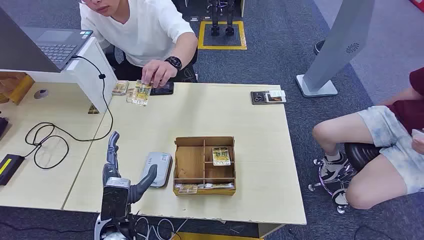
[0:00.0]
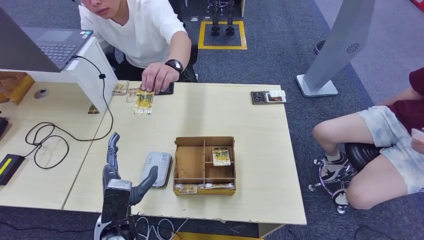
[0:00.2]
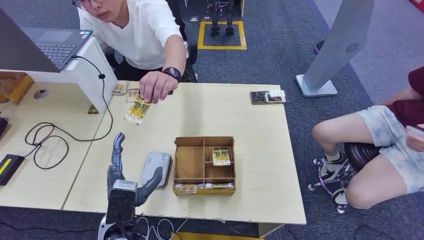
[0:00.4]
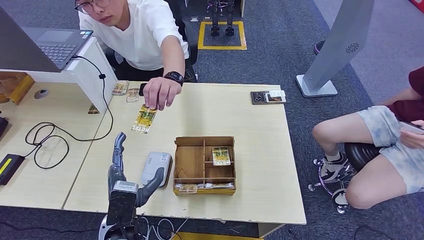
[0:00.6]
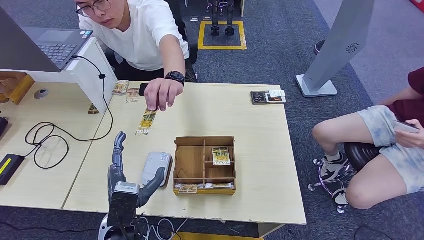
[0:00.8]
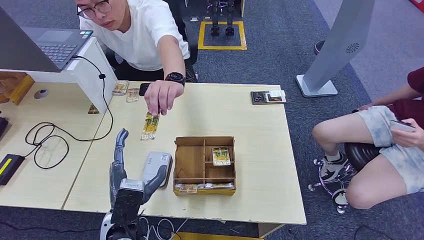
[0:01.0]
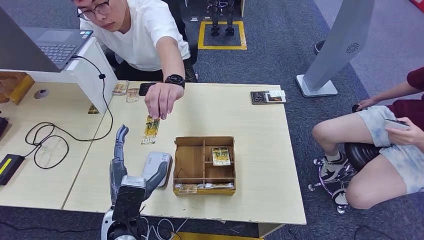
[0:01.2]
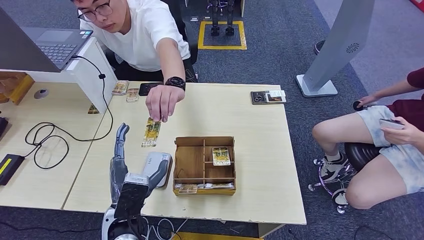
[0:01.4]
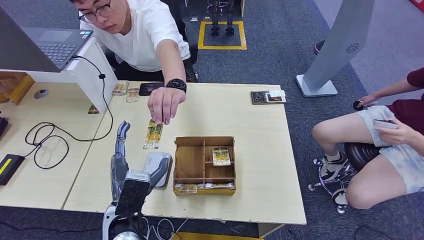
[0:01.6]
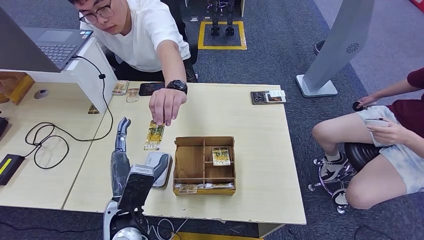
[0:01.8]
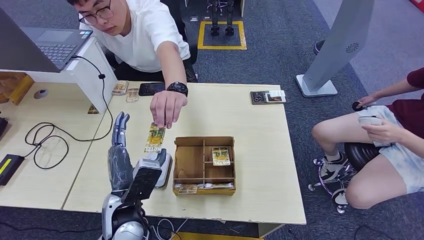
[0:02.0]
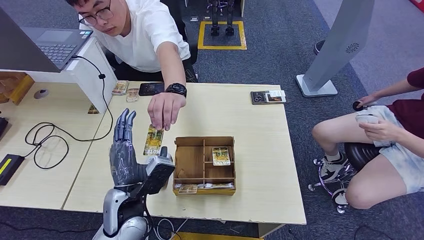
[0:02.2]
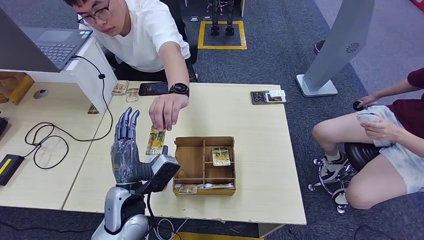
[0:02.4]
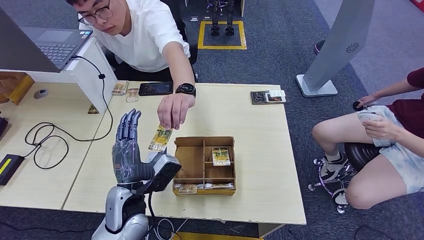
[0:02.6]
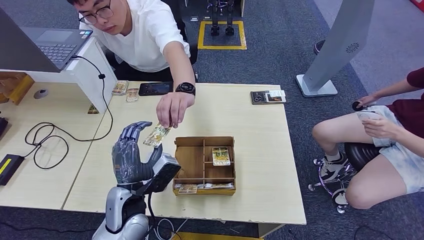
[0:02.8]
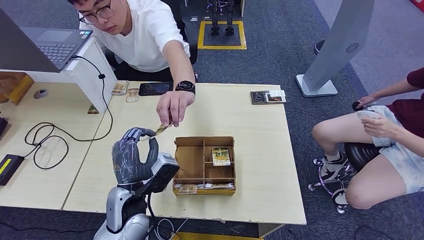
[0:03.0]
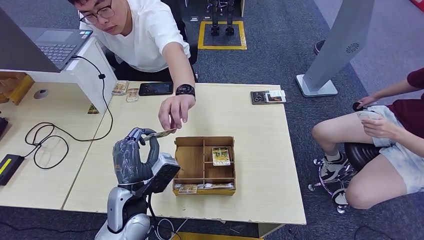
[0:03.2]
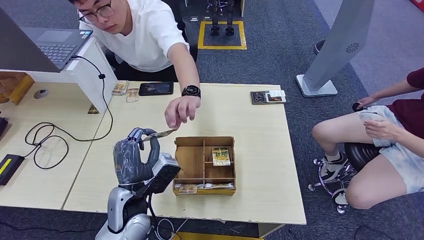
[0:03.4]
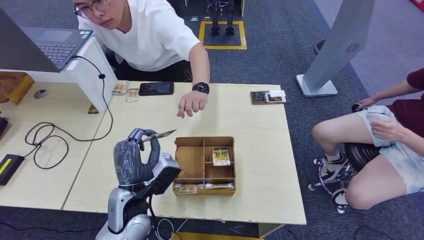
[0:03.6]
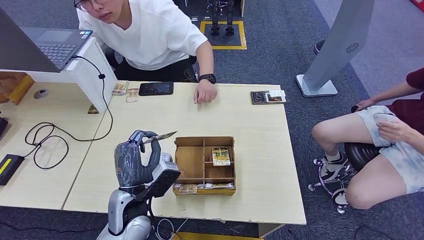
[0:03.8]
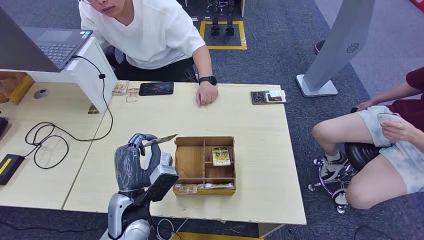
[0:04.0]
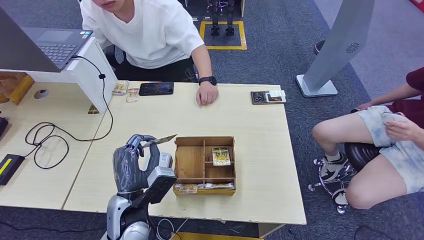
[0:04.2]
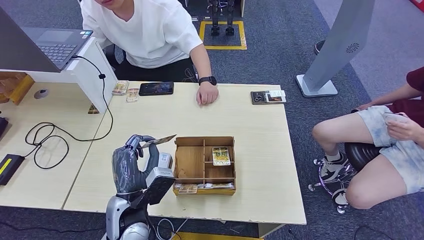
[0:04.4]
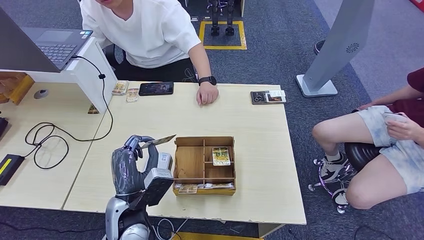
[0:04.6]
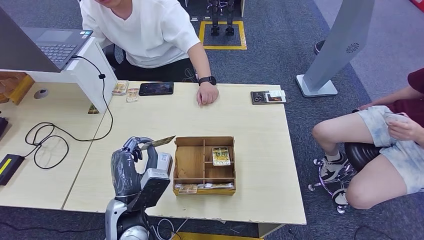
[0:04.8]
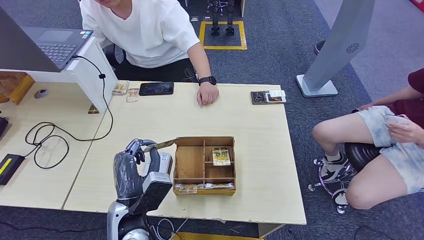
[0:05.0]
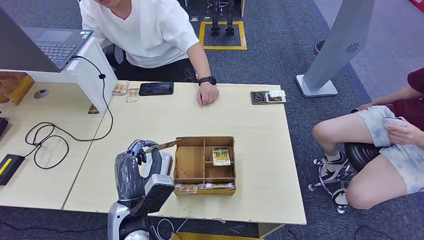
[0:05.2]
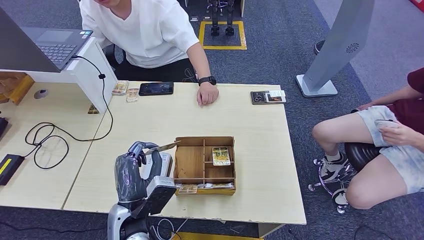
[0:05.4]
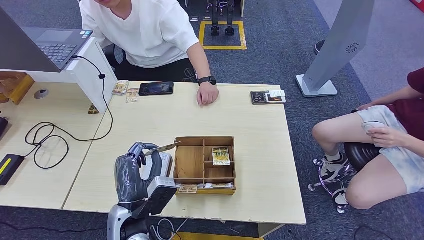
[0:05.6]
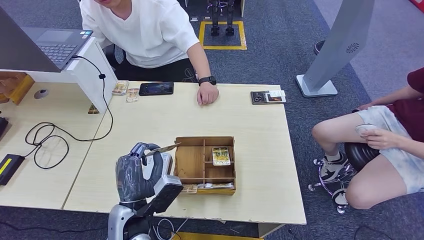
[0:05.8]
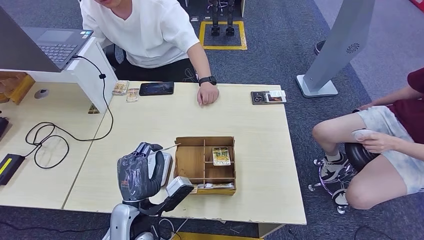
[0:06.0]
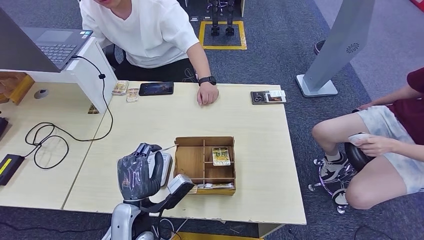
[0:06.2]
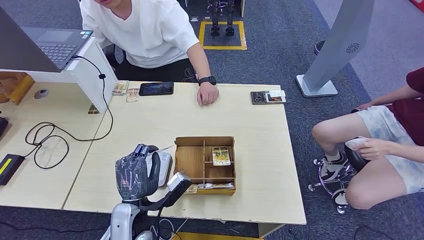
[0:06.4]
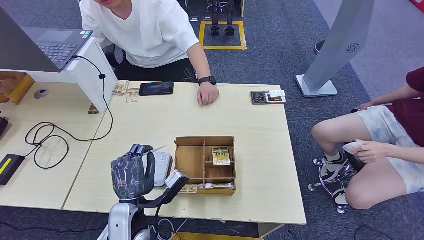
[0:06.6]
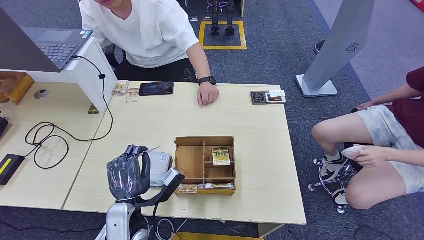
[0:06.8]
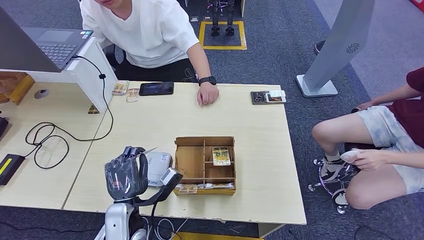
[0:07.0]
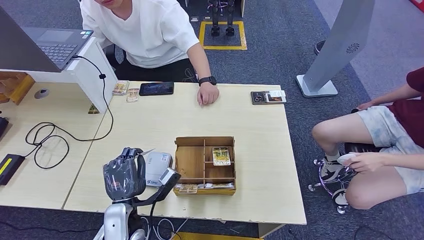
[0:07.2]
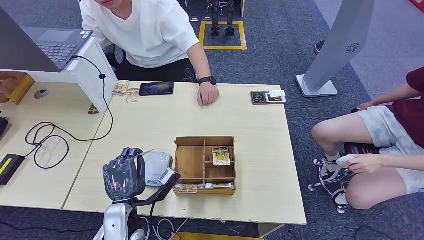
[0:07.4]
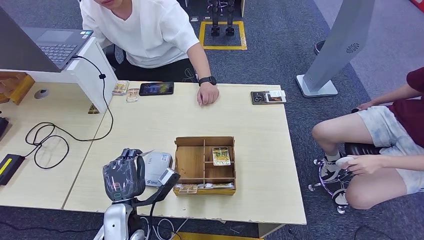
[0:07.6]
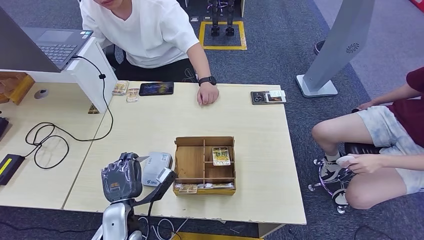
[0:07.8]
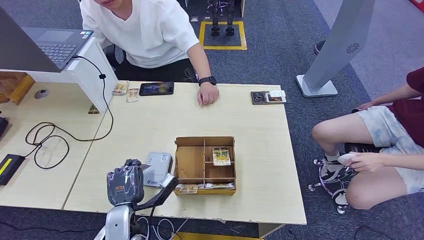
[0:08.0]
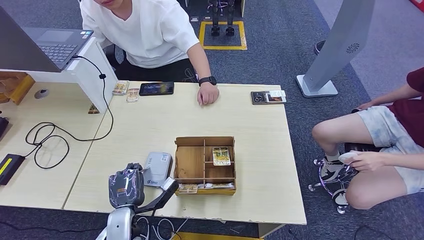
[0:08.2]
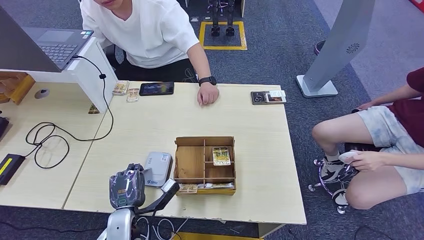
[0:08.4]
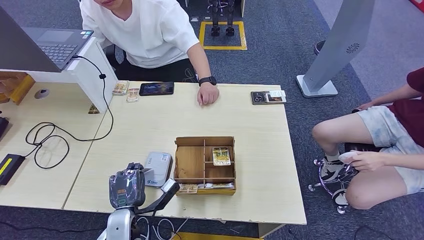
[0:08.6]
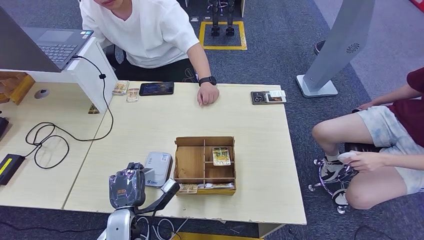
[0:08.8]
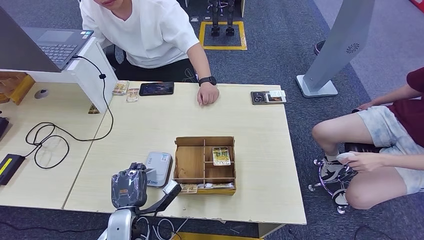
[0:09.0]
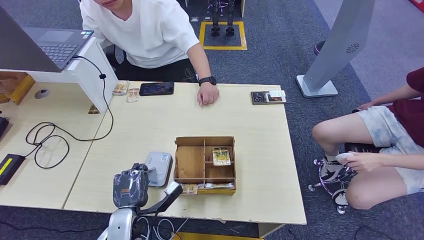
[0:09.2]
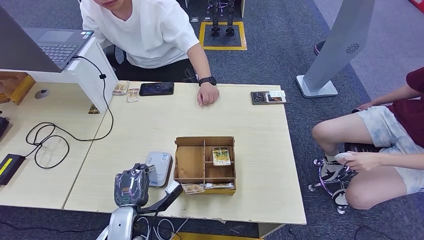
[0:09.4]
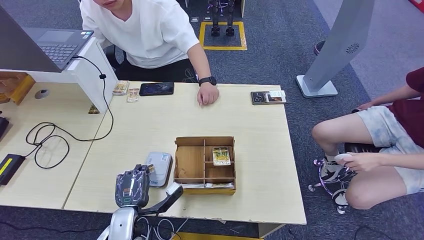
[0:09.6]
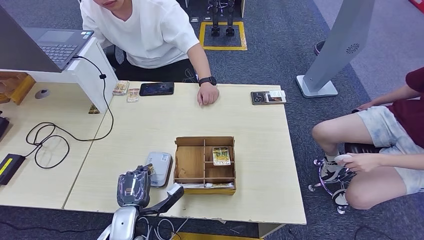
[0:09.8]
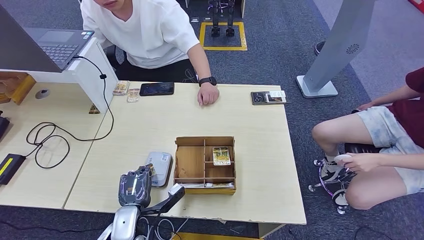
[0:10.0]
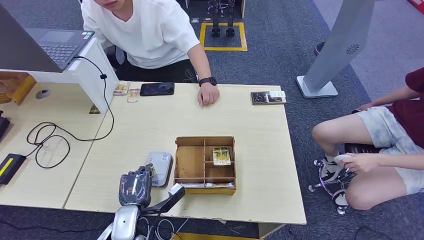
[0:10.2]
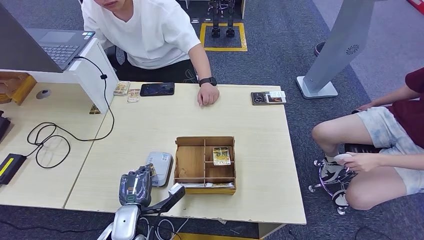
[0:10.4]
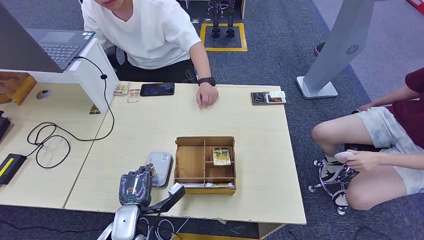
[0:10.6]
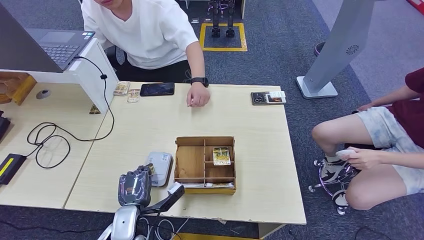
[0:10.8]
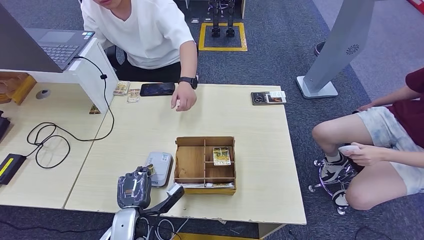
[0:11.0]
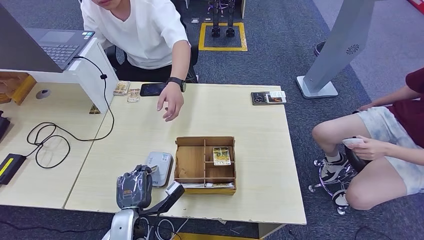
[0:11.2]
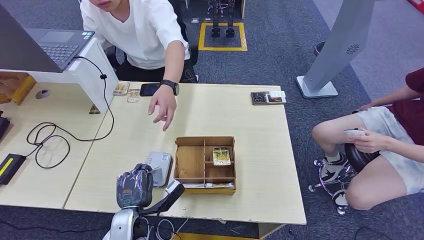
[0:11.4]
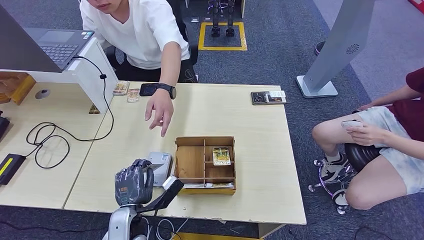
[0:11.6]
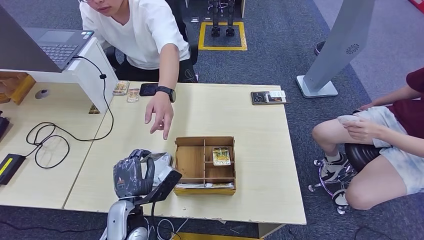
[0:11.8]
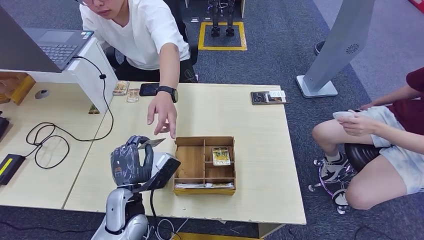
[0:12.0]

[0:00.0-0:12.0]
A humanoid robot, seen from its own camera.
Step, 0:00.0 to 0:04.0: Take the ID card from the person's hand.
Step, 0:04.8 to 0:10.2: Place the ID card on the card reader.
0:03.0 to 0:06.0: The hands stay close to where they were, moving slightly.
0:06.0 to 0:07.6: The left hand ends up about 5 cm from where it was.
0:09.0 to 0:10.4: The hands make only small movements.
0:10.4 to 0:12.0: The left hand is displaced upward by roughly 10 cm.

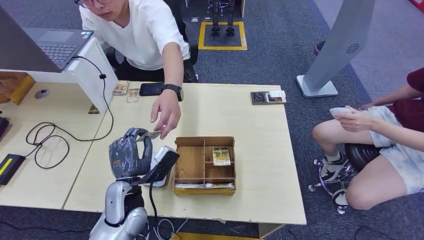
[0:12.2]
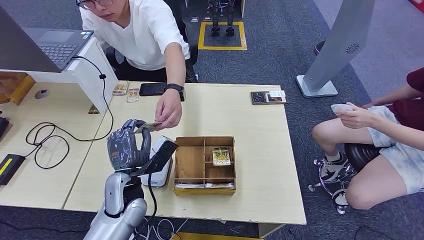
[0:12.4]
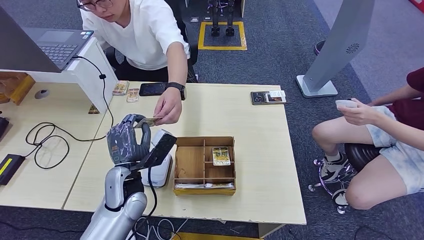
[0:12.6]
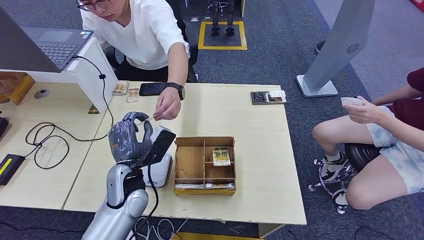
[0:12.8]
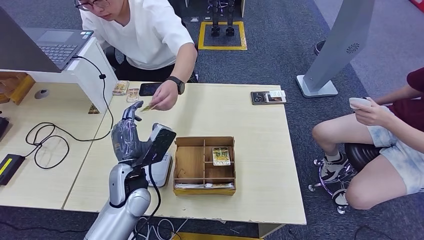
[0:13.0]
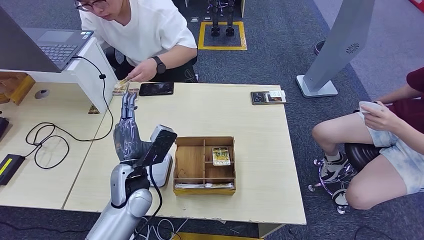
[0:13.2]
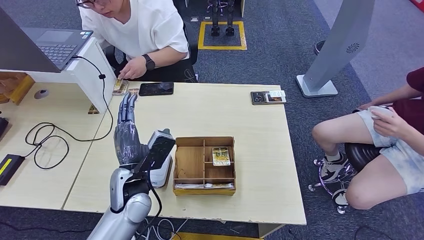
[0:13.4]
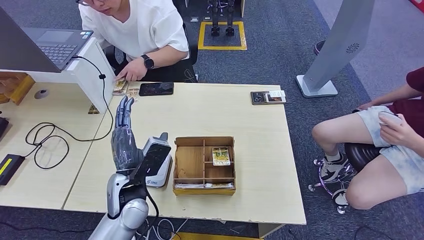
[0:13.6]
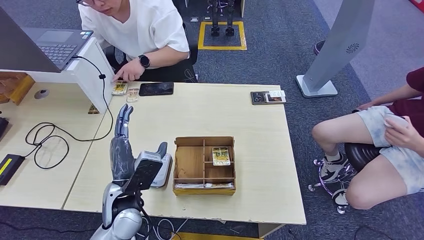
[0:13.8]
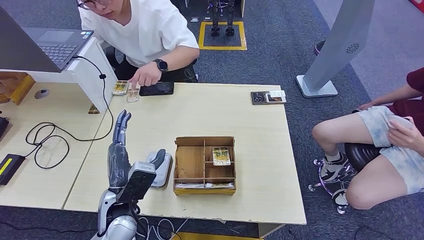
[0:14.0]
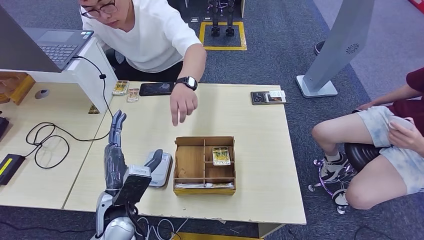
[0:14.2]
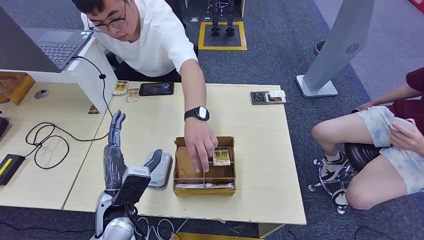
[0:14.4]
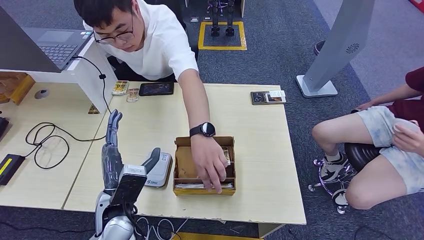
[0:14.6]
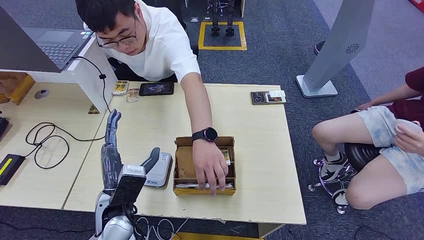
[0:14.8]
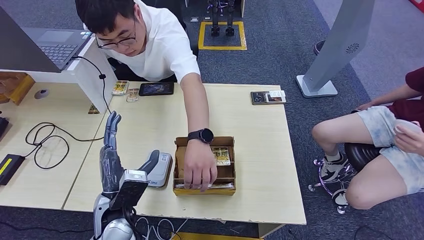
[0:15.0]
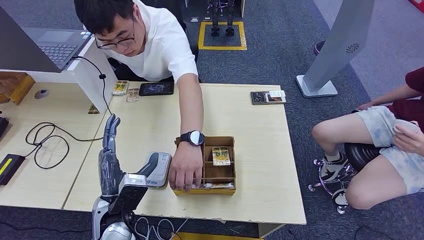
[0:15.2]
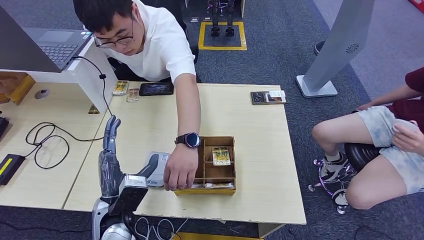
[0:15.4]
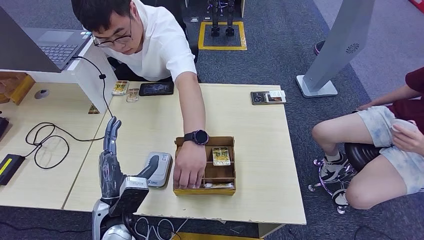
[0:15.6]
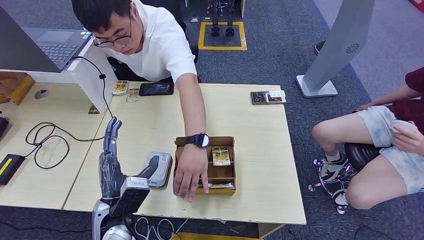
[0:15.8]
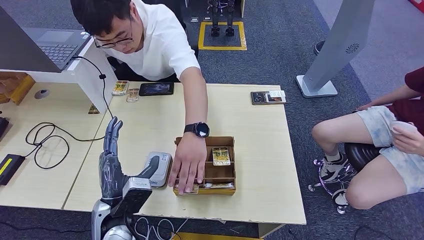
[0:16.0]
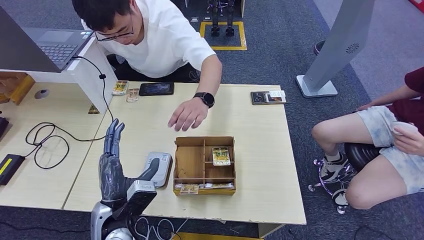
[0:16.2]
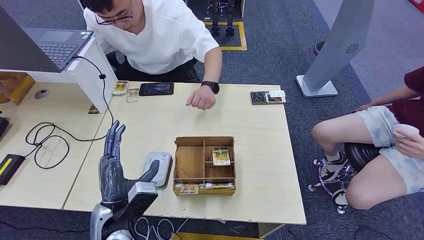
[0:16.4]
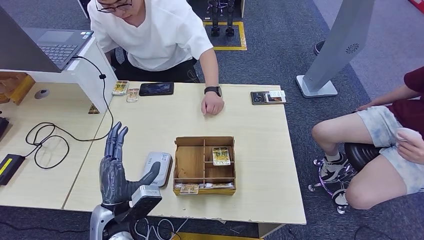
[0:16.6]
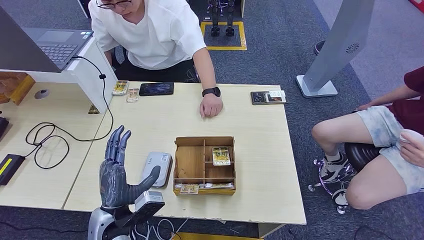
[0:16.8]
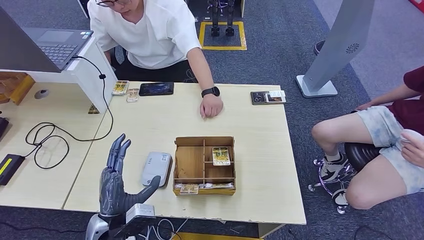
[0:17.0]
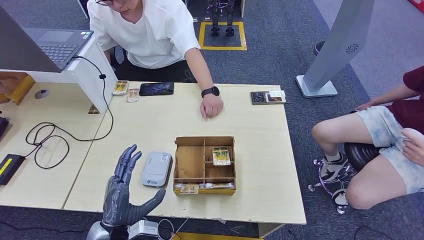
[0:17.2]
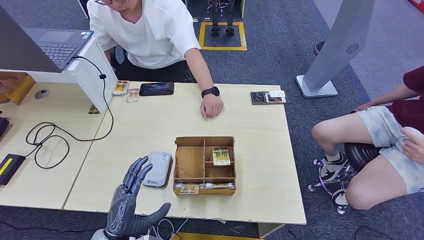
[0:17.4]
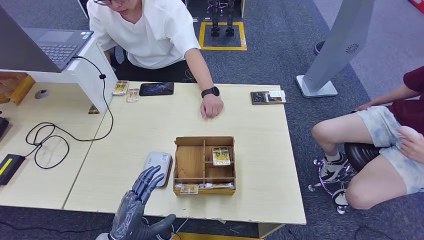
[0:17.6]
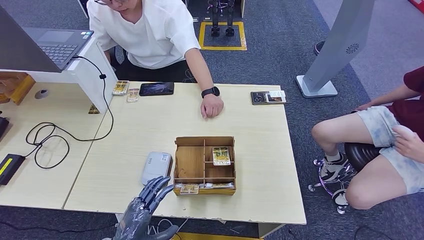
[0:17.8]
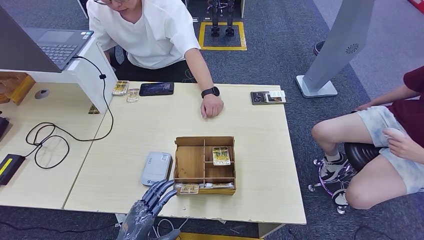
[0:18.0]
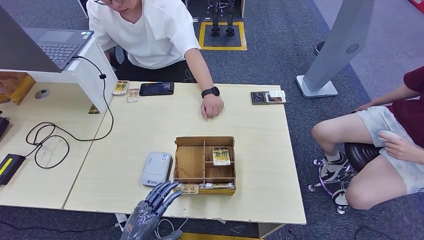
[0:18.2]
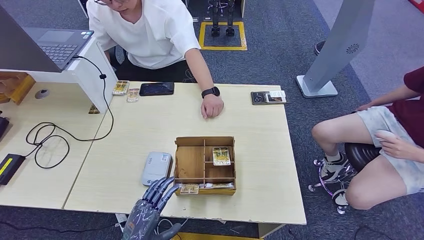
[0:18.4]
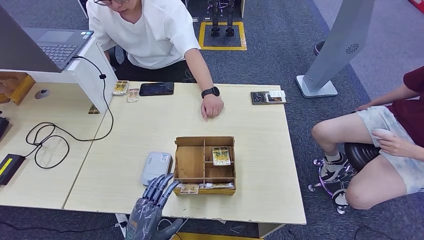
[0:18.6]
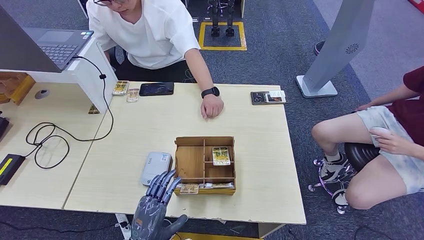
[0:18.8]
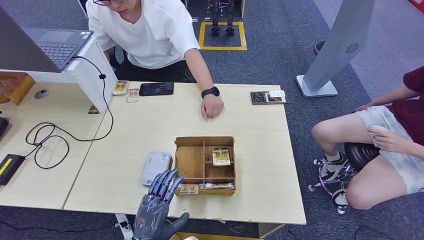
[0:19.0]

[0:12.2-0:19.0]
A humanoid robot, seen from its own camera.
0:13.6 to 0:15.0: The left hand shifts by roughly 5 cm.
0:15.0 to 0:16.2: There are only small adjustments of the hands.
0:16.2 to 0:17.6: The left hand is displaced backward and downward by roughly 10 cm.
0:17.6 to 0:19.0: The left hand moves to the right, about 5 cm.
